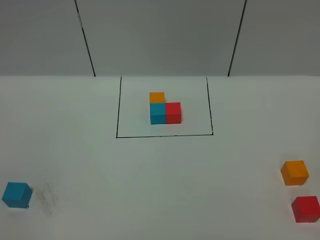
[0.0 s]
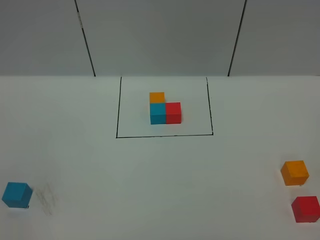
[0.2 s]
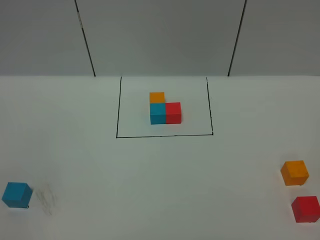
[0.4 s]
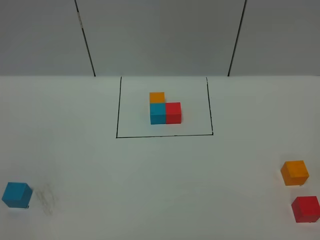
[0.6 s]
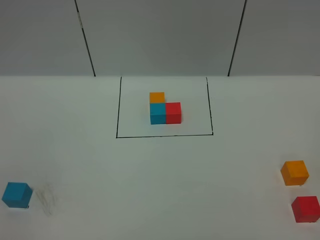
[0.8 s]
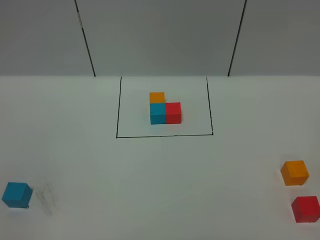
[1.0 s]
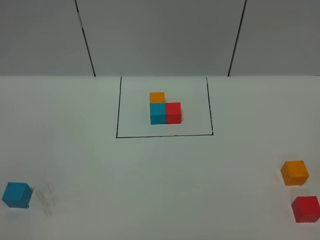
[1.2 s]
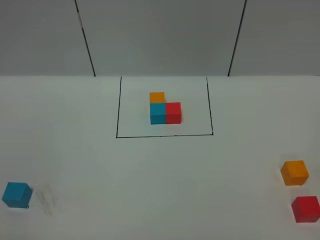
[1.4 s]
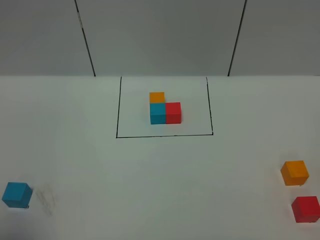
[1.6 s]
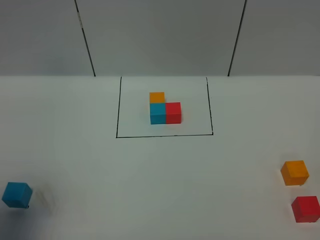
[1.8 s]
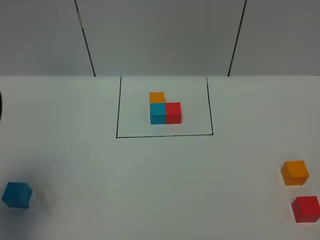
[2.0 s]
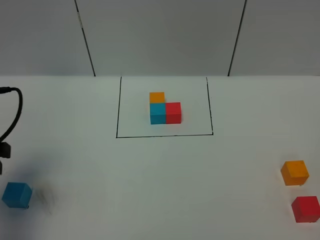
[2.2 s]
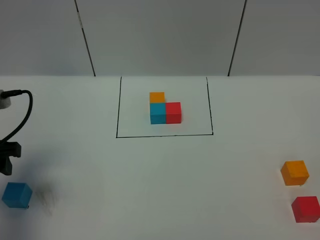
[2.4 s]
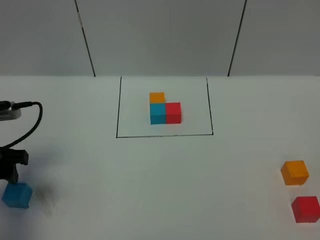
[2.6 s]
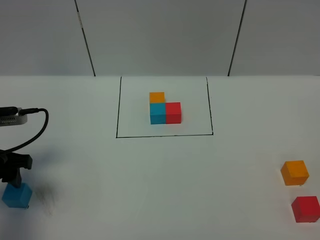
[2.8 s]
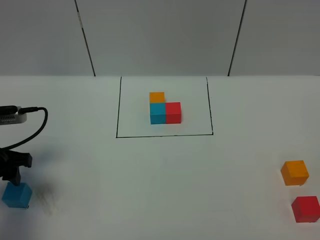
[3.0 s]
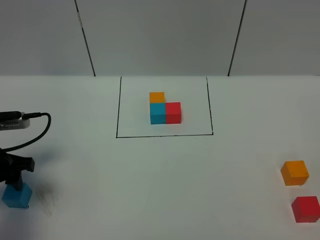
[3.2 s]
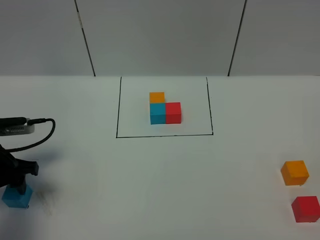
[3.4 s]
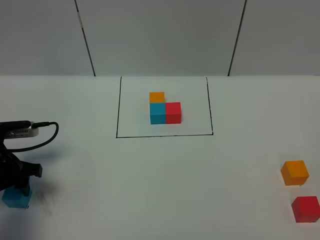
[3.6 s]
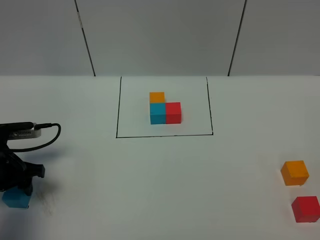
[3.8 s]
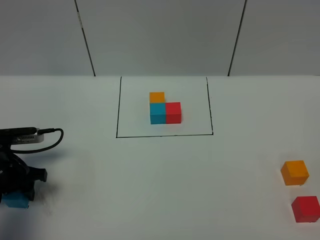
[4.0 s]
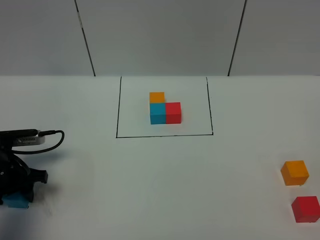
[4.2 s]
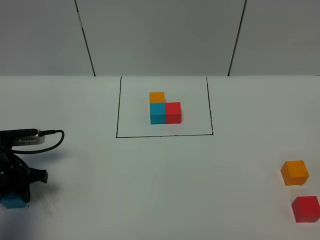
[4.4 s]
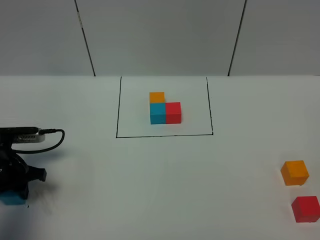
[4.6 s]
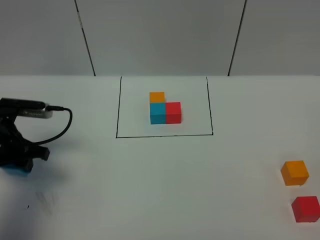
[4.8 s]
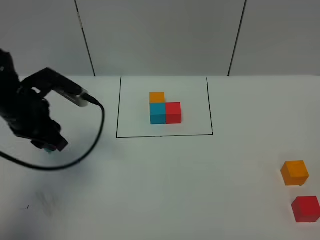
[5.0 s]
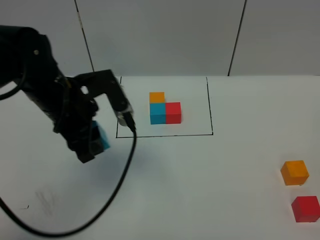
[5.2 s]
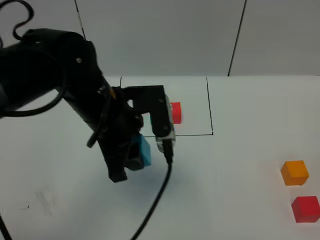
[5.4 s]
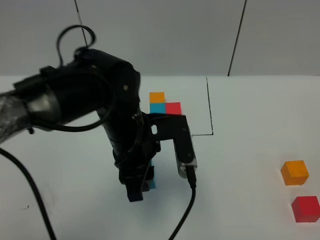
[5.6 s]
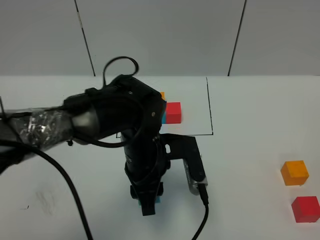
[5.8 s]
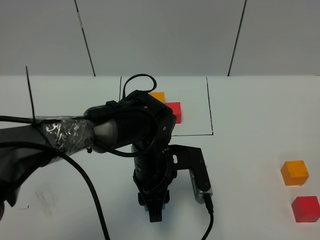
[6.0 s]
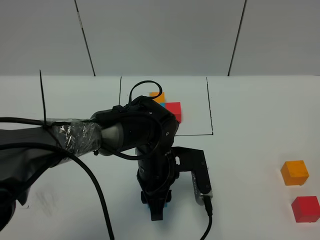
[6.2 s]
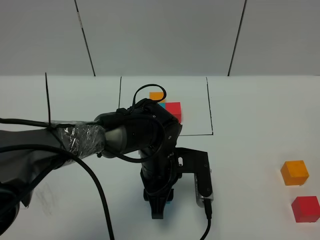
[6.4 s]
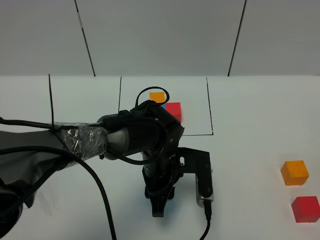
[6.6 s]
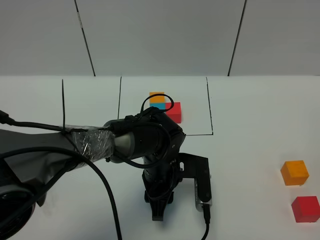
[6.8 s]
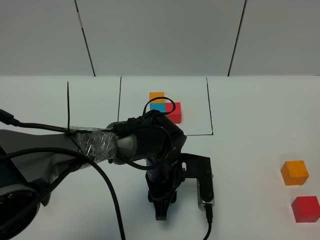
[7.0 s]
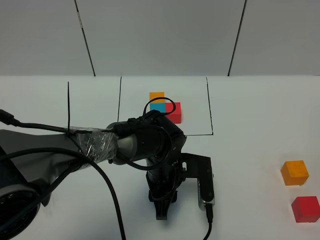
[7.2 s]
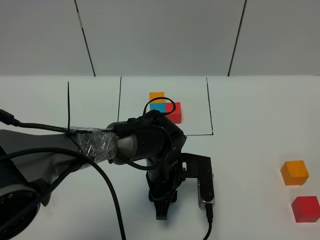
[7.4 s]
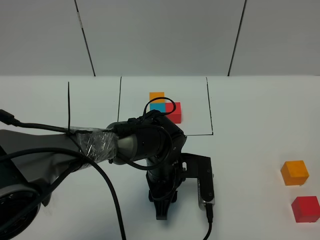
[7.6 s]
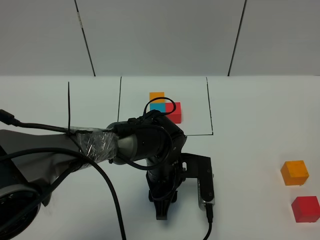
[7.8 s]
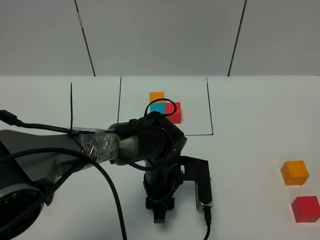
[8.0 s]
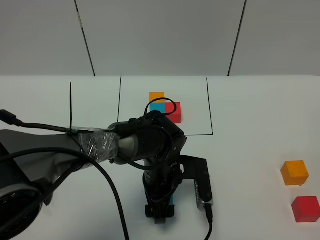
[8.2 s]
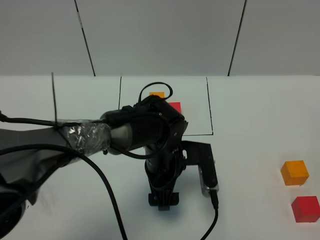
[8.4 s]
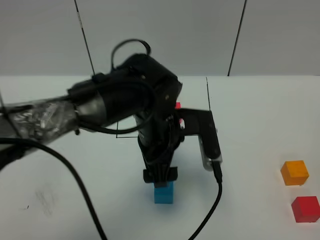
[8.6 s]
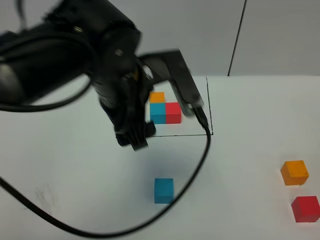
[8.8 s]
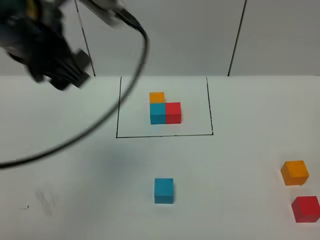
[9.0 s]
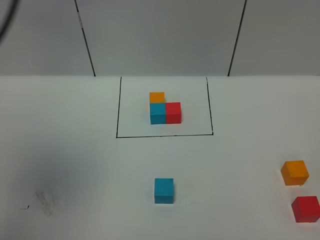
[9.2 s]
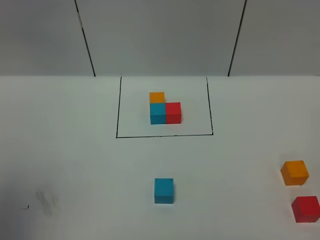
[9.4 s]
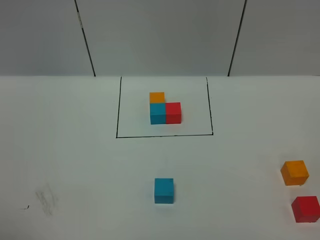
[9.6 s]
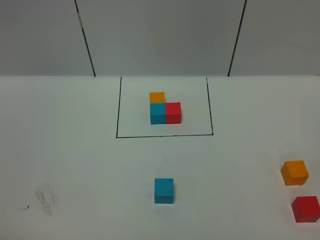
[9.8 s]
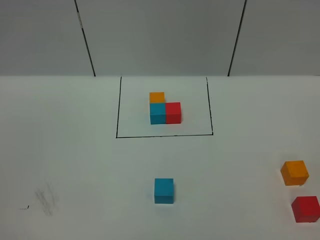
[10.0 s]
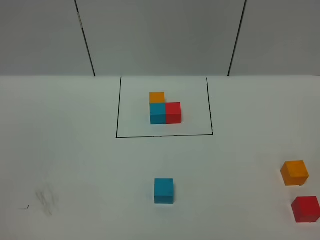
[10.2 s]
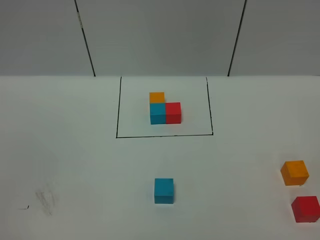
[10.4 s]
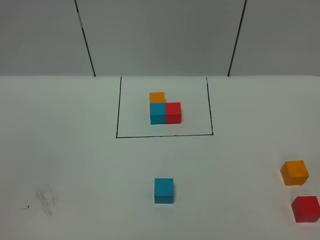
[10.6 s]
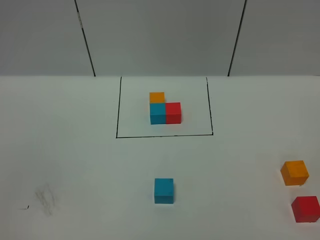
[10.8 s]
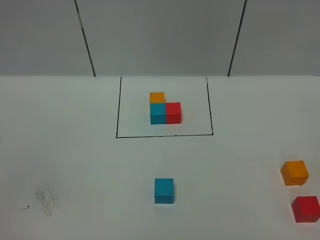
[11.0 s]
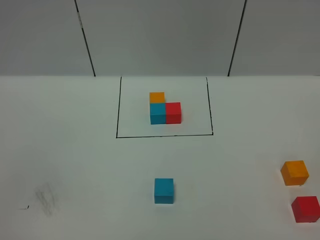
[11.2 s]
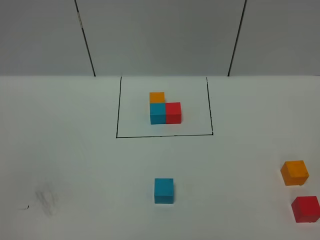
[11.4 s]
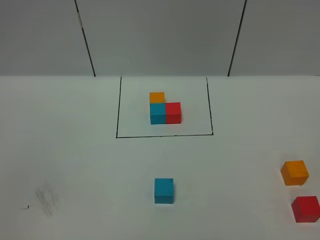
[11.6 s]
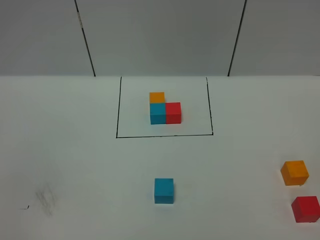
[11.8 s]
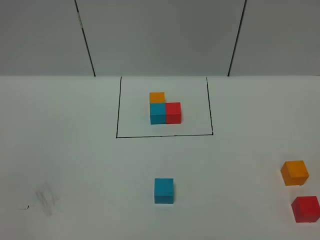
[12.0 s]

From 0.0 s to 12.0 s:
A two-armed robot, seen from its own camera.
Task of the whole recording: According to the building block template in front, assemble the scattered blocks together.
Step, from 2.0 s to 8.4 s: Put the blue cube in the center of the table.
From 1.6 s to 3.0 s: The left gripper moves forward and downward, approximately 25 cm.
From 3.0 s to 4.4 s: The left gripper travels downward by about 10 cm, and closes its fingers.
From 4.4 s to 6.0 s: The left gripper goes some 30 cm to the right.
From 6.0 s to 7.6 s: The left gripper ends up about 5 cm from where it was.
From 7.6 s to 9.0 s: The left gripper moves upward and to the left, about 35 cm, and opens.
From 9.0 s to 10.4 s: The left gripper is displaced backward and to the left by roughly 35 cm.

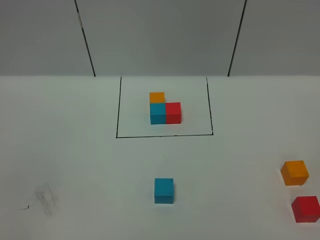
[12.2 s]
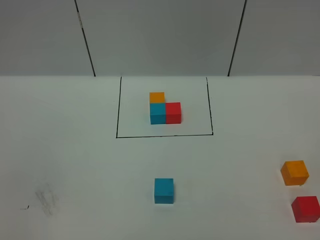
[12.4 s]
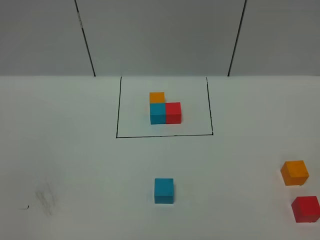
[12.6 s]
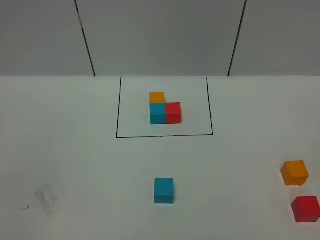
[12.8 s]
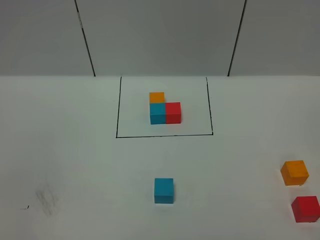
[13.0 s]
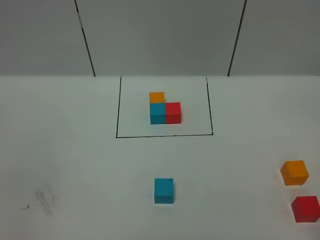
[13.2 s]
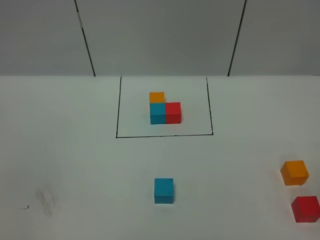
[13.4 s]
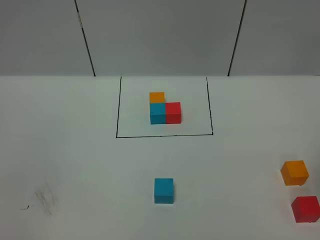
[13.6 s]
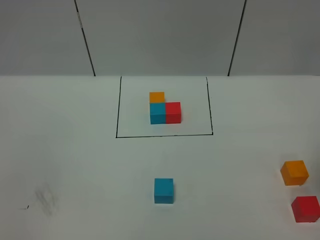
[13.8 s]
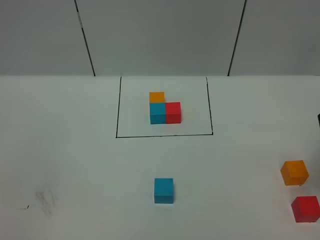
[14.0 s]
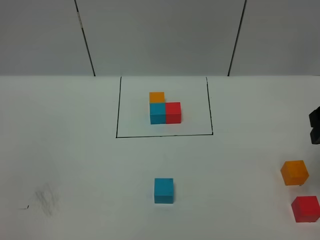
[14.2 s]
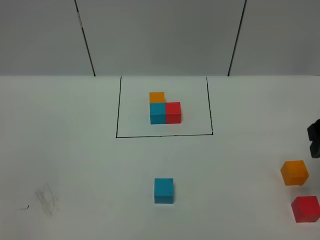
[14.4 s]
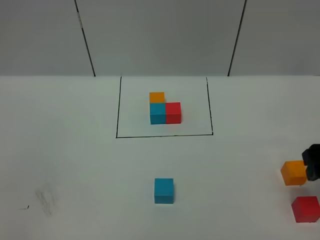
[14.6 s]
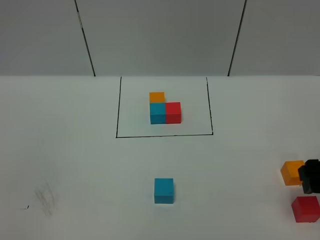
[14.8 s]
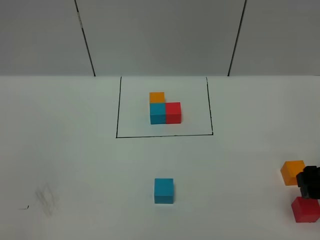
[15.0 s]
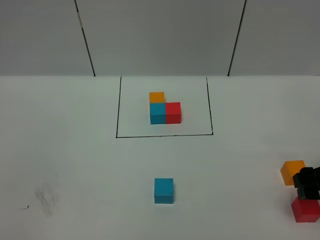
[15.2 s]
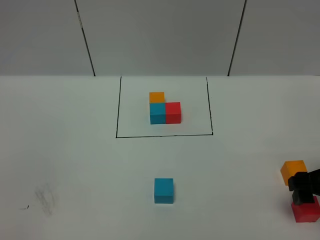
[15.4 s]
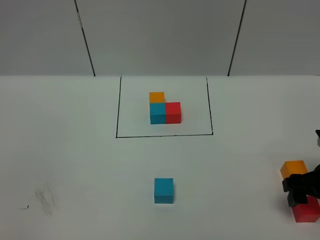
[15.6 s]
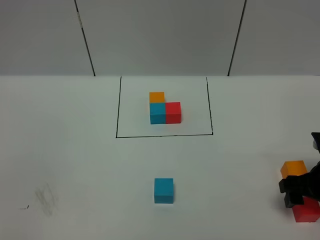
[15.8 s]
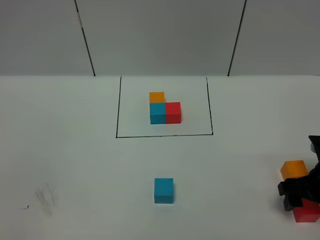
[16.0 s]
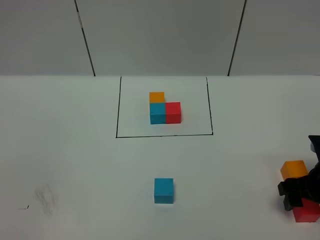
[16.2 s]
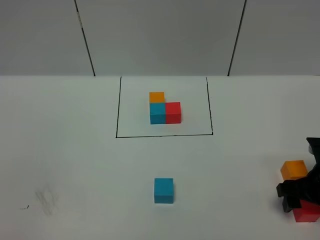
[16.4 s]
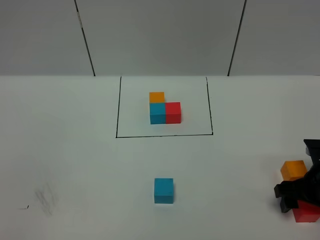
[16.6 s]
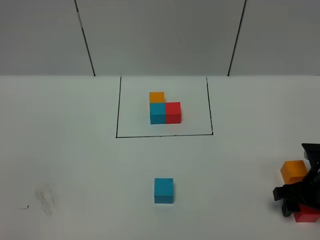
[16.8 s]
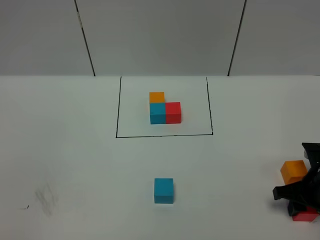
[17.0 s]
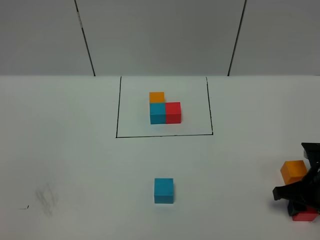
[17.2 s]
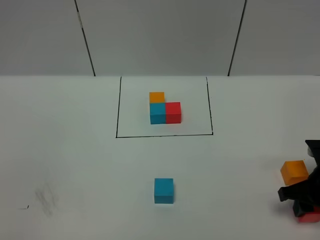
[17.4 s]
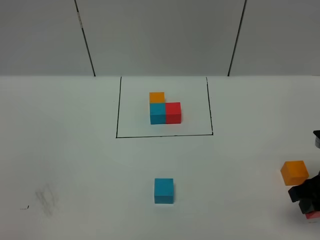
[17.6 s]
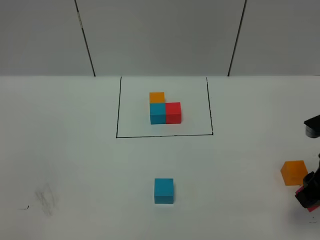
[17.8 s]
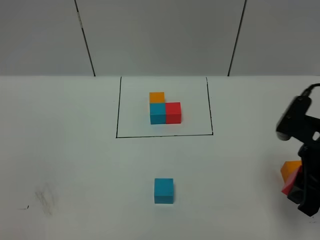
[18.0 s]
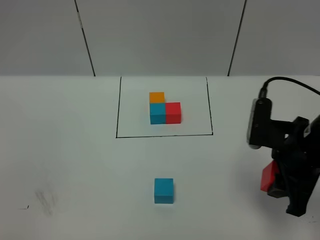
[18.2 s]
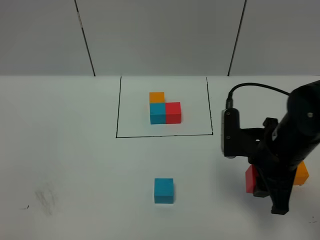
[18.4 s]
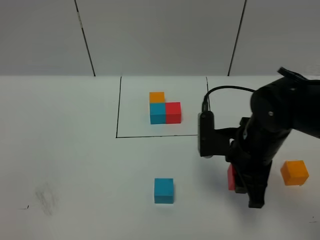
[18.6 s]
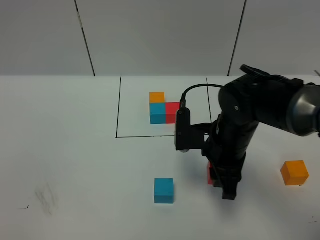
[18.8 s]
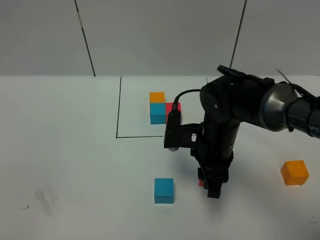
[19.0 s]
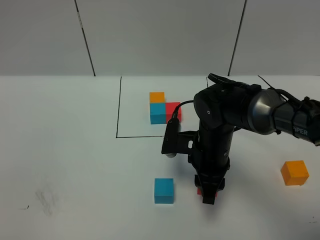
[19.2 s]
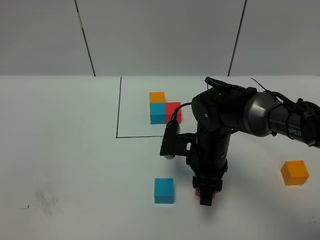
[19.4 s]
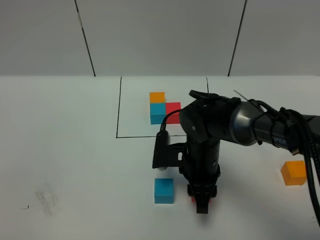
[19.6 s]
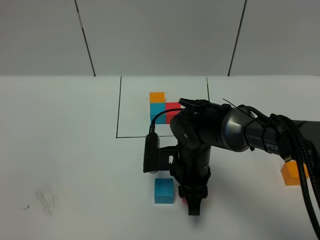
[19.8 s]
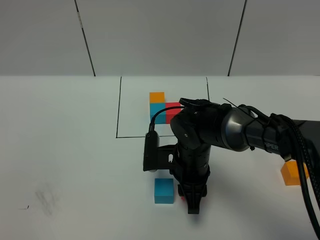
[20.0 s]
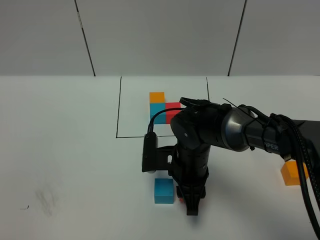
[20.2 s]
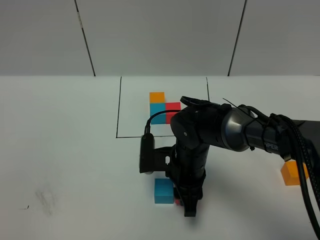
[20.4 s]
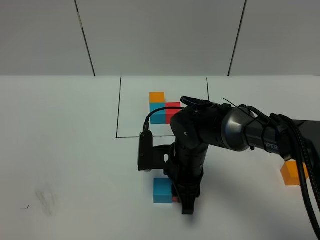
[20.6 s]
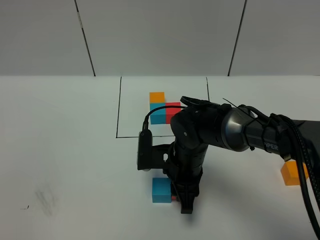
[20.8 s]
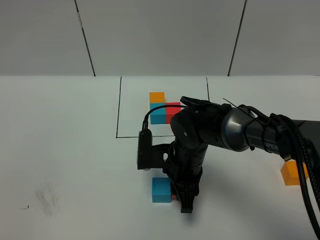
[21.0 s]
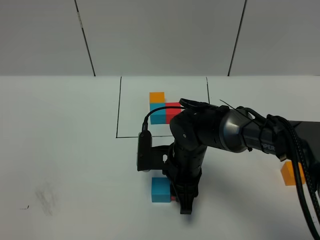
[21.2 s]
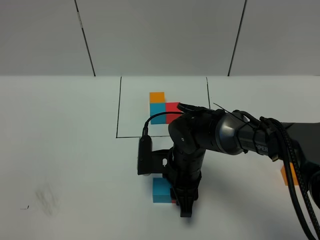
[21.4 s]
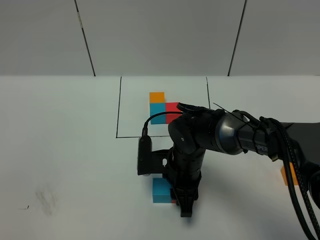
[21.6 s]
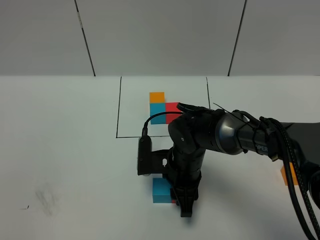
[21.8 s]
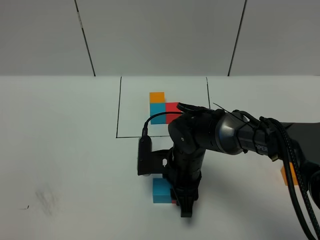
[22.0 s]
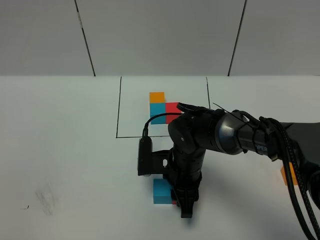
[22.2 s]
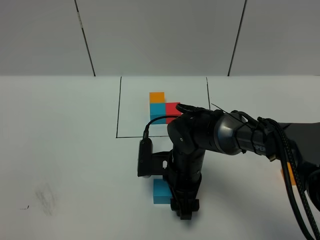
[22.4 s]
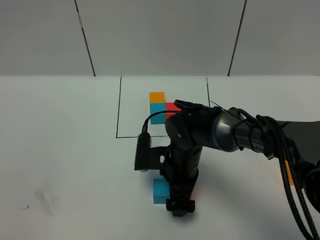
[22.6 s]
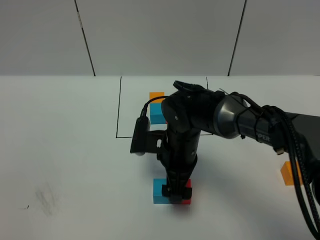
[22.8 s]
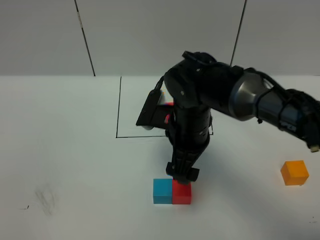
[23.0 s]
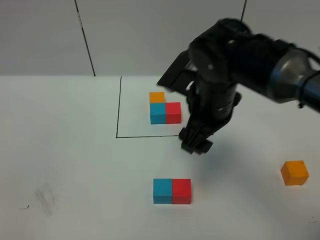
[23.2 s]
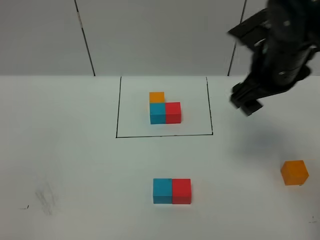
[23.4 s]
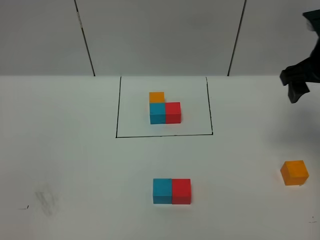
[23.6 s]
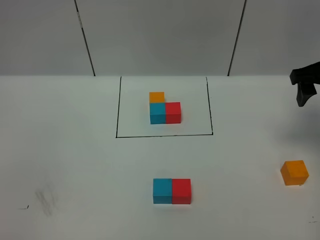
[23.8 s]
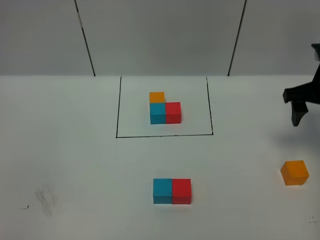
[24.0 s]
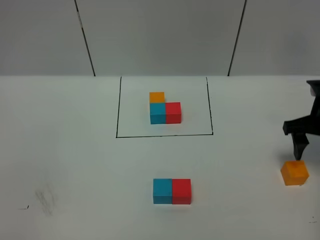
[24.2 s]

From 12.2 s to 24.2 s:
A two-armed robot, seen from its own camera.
Task of the whole recording: According to the building block template in front, assemble the scattered blocks together.
Step, from 12.2 s to 22.4 s: Put the red cube on the right of the blue cube.
From 13.8 s to 15.2 s: The right gripper is displaced downward by about 15 cm.
From 15.2 s to 16.6 s: The right gripper travels downward by about 10 cm.
From 16.6 s to 18.2 s: The right gripper moves upward and to the left, some 15 cm, and closes.
From 18.2 s to 19.8 s: The right gripper moves to the left and downward, some 20 cm.
From 19.8 s to 21.2 s: The grippers stay close to where they were, moving slightly.
From 21.2 s to 22.6 s: The right gripper opens its fingers.
From 22.6 s to 24.2 s: The right gripper shifts approximately 30 cm to the right.
